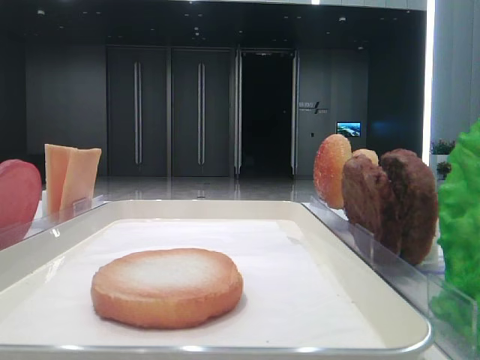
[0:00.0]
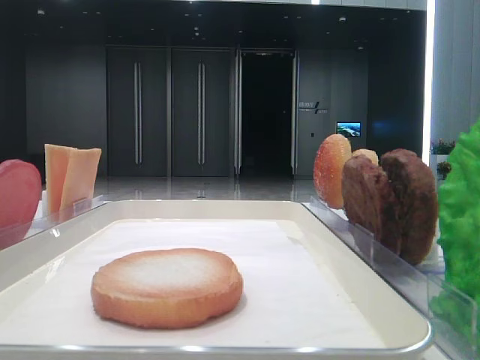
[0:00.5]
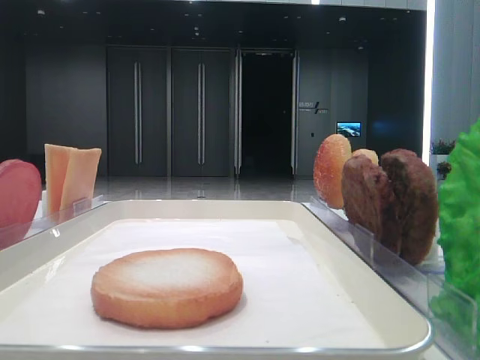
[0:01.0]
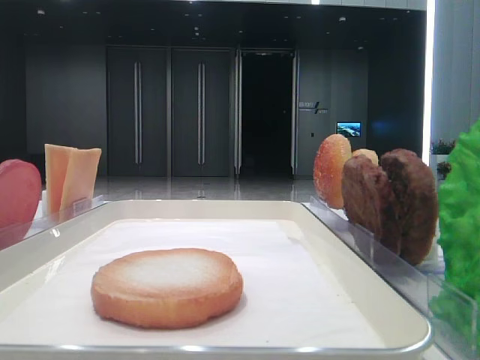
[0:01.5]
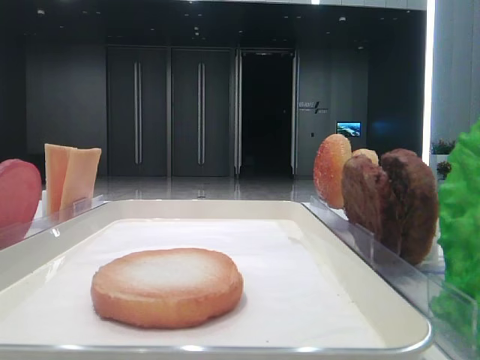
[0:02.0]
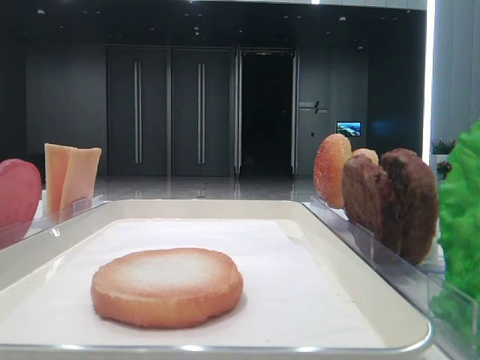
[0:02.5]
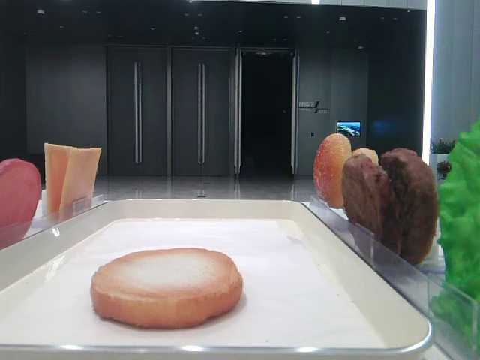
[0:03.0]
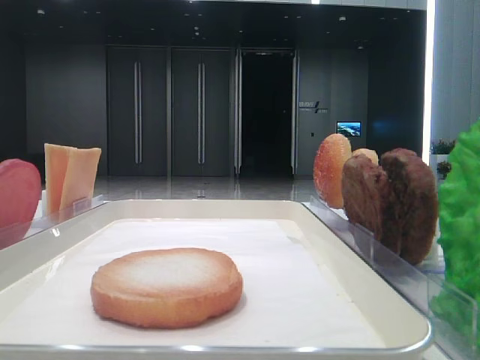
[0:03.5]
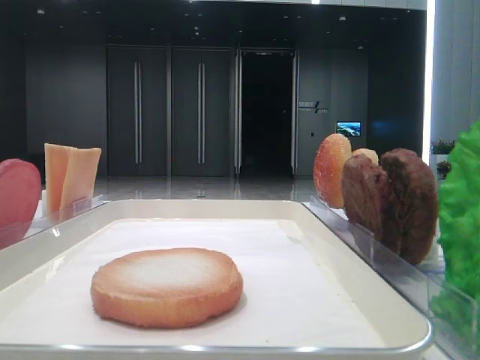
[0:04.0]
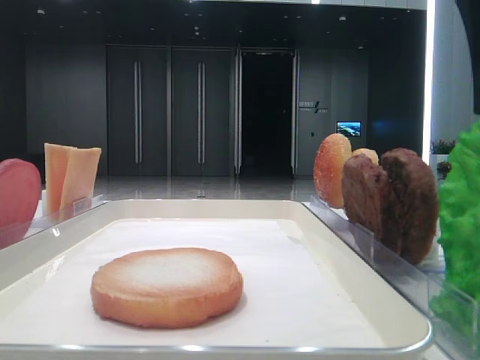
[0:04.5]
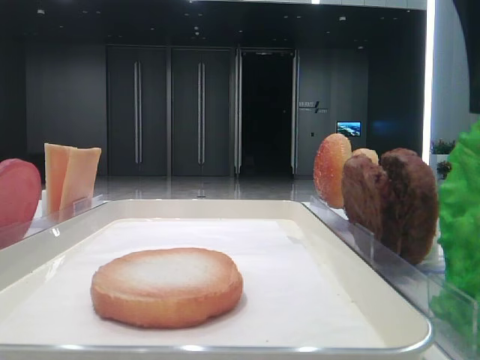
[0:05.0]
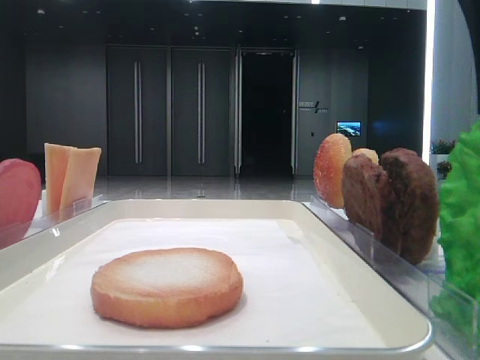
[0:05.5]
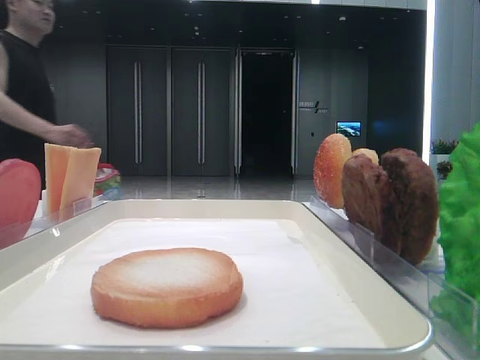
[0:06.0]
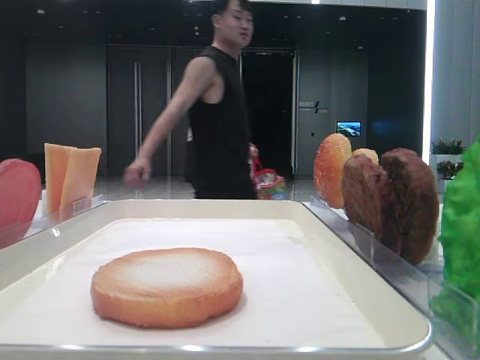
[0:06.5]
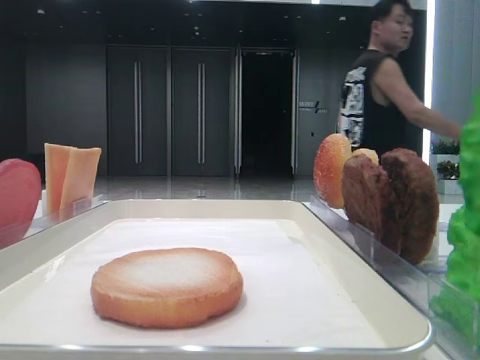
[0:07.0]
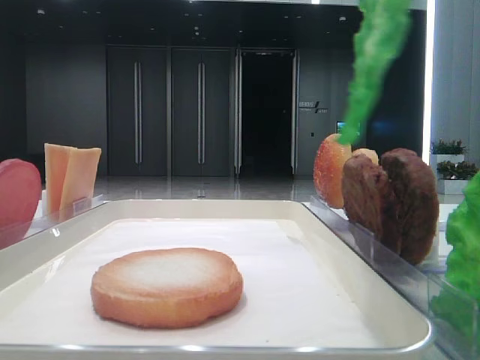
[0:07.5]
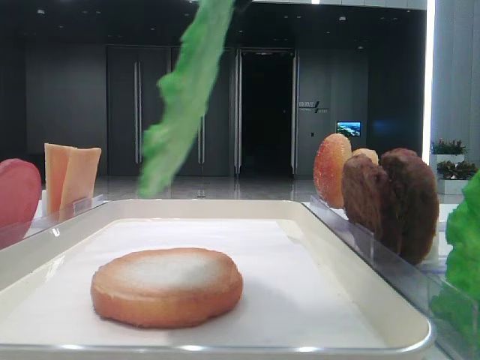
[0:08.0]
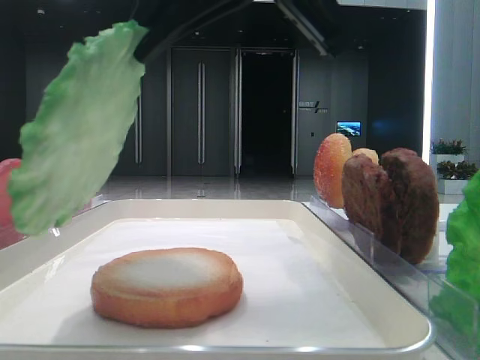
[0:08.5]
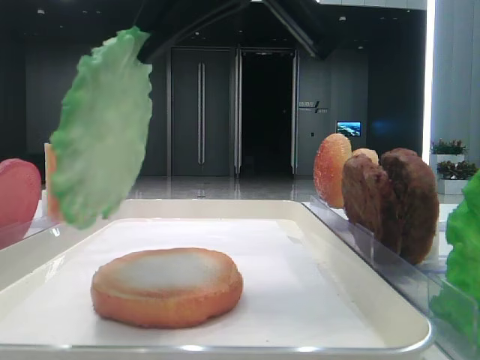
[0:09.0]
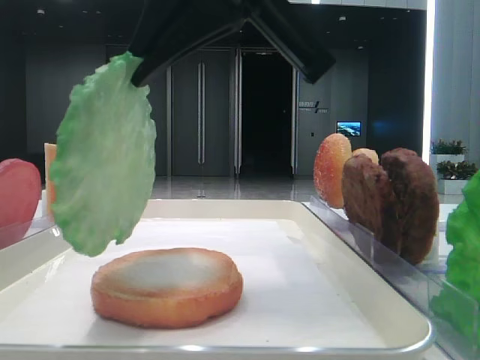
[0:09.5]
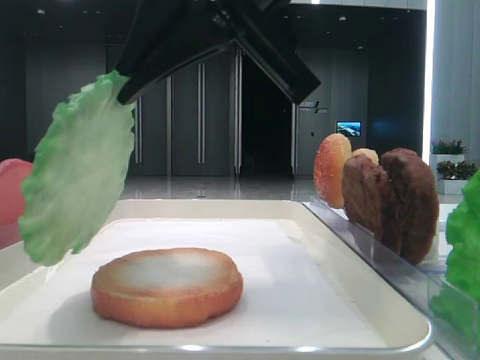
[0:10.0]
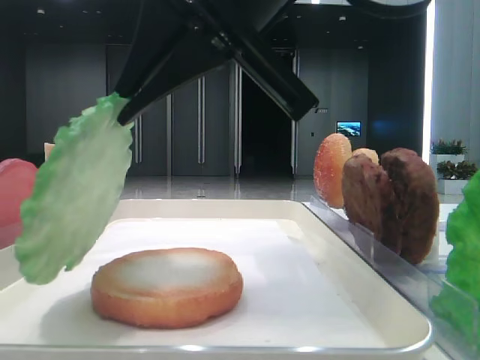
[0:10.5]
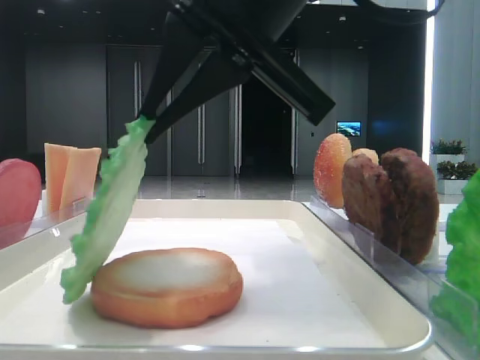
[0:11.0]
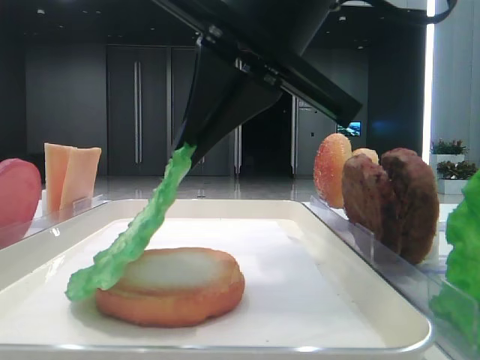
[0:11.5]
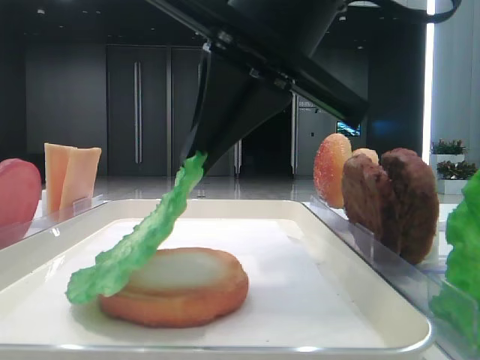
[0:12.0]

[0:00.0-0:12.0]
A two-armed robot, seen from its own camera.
Step, 0:00.0 to 0:06.0: Grab the lettuce leaf with the right hand.
0:06.0 to 0:08.0: The right gripper heads to the left, covering roughly 10 cm, and closes.
0:08.0 to 0:10.0: The right gripper moves downward and to the left, approximately 10 cm.
0:10.0 to 0:12.0: The grippers move only a little.

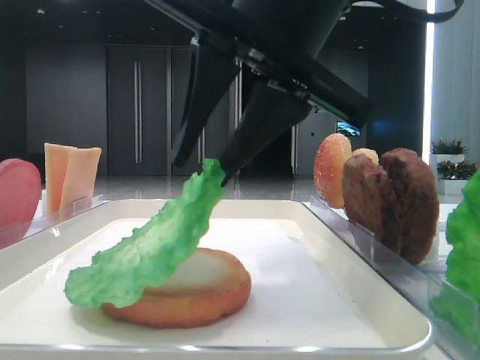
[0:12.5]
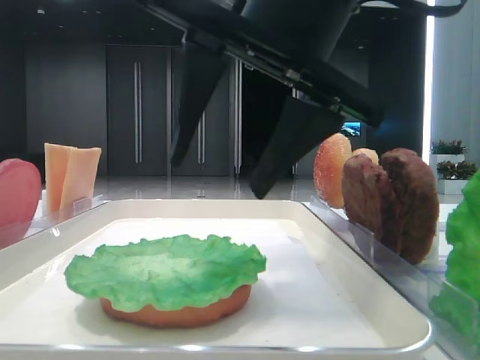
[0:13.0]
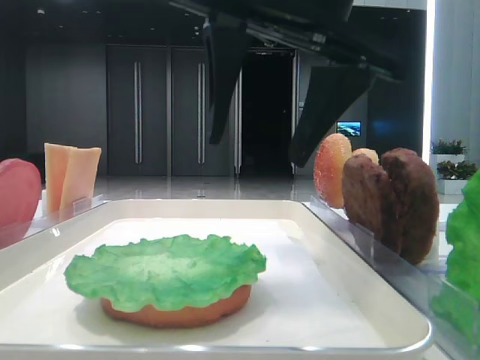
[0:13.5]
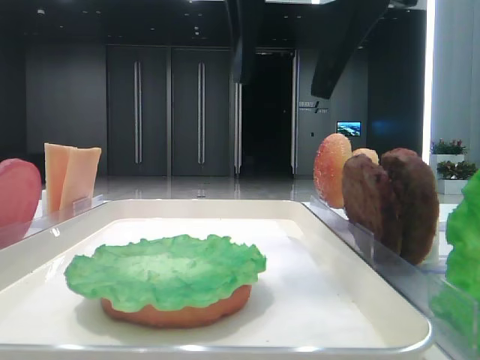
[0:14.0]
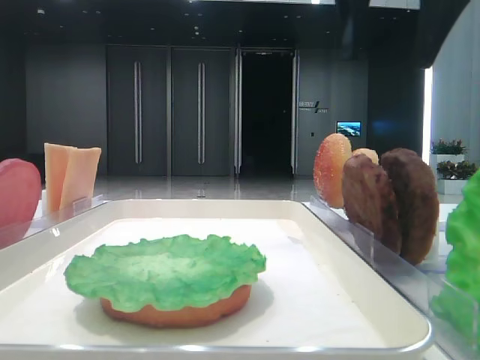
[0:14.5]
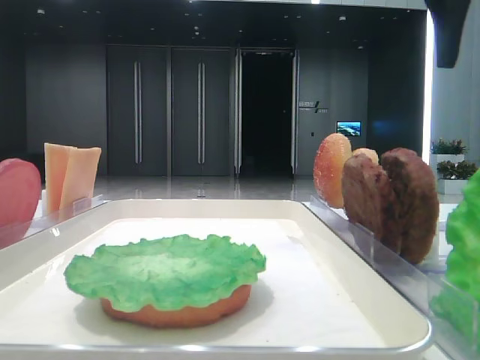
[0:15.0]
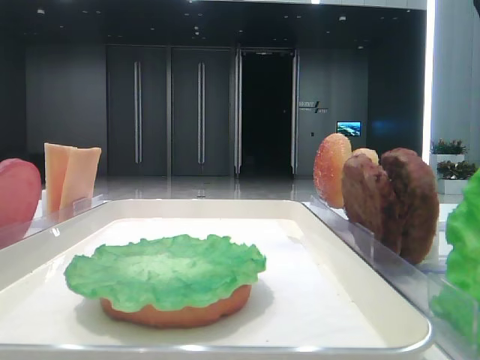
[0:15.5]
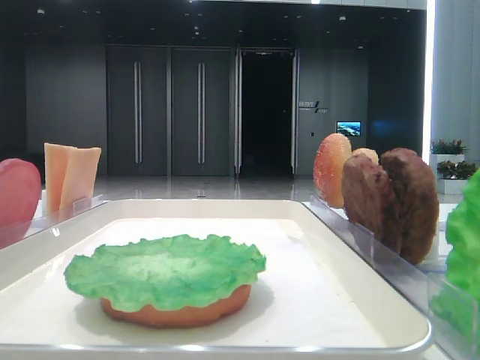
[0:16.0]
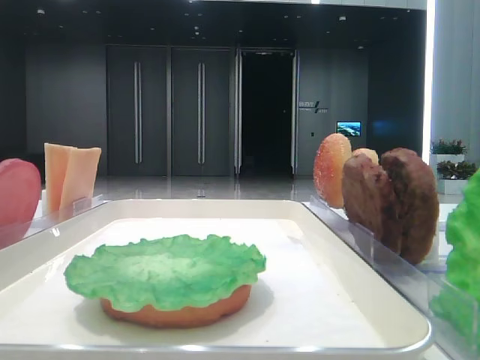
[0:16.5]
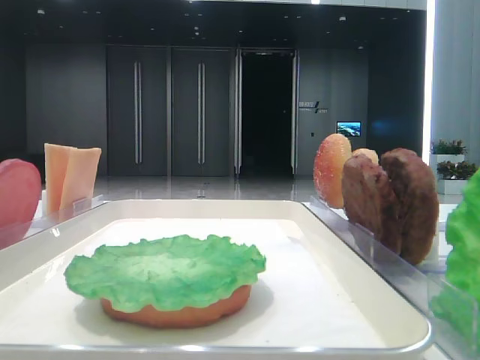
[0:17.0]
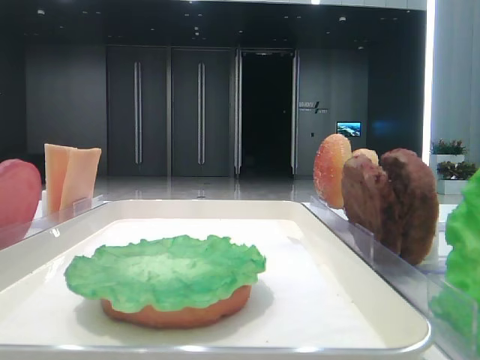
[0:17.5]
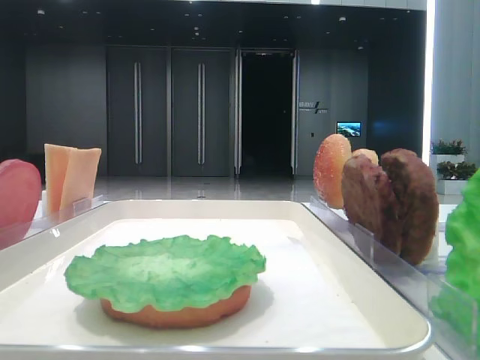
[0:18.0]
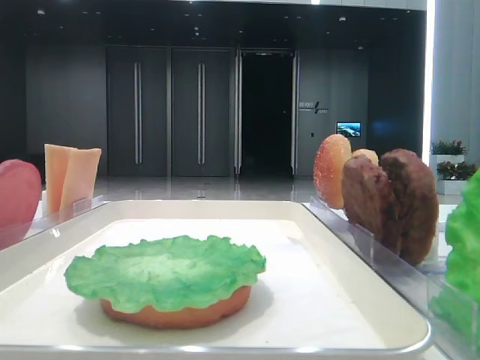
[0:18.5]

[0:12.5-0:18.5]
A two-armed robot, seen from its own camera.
0:12.5 to 0:14.5: The right gripper heads upward, to the right and forward, covering about 15 cm, and opens.
0:14.5 to 0:16.5: The right gripper shifts some 20 cm to the right.
0:16.5 to 0:18.5: The right gripper goes approximately 25 cm backward.

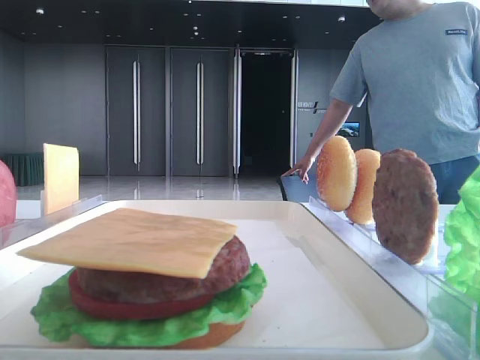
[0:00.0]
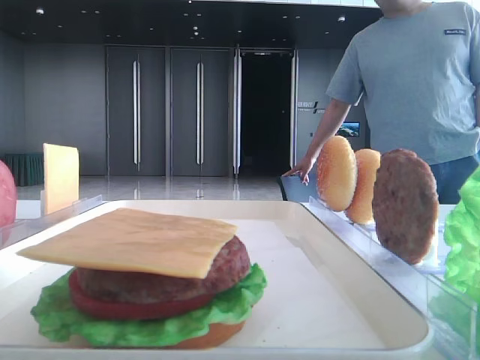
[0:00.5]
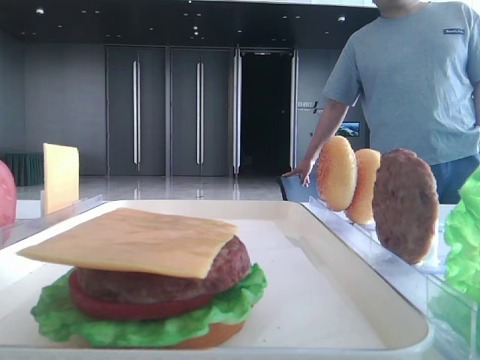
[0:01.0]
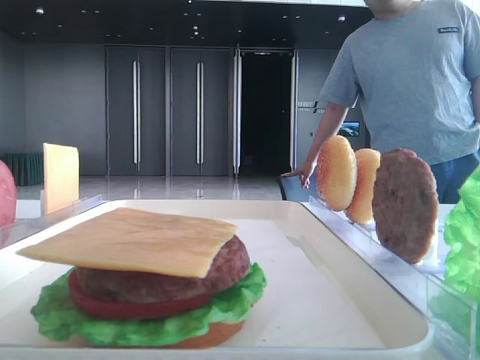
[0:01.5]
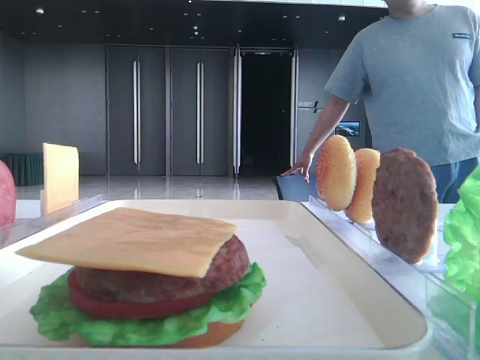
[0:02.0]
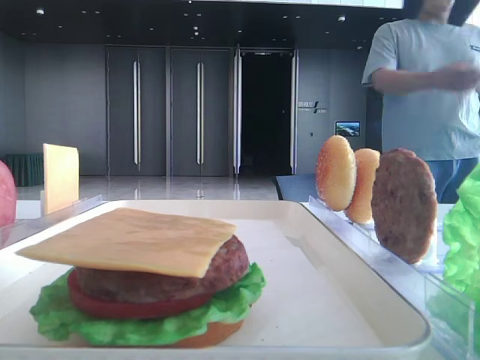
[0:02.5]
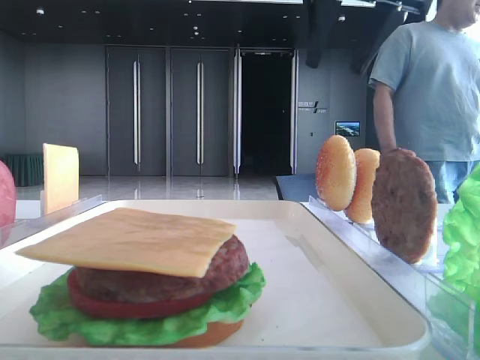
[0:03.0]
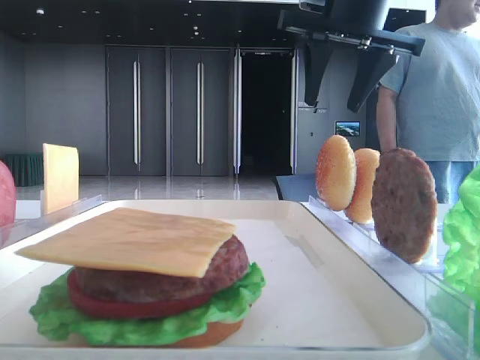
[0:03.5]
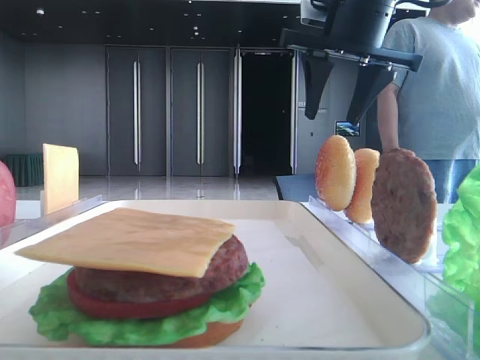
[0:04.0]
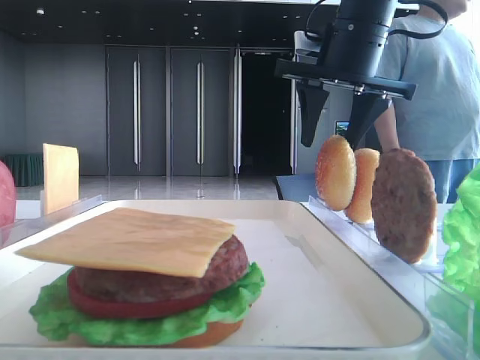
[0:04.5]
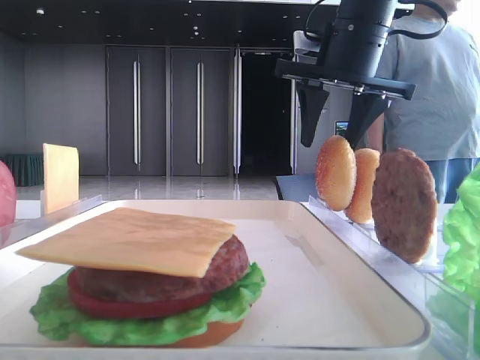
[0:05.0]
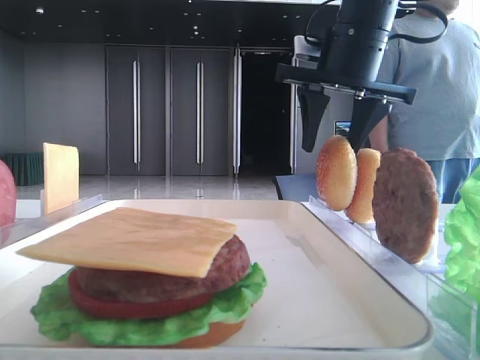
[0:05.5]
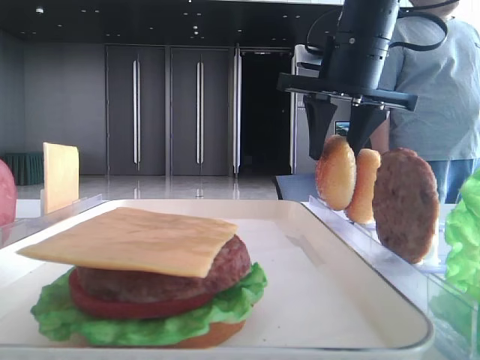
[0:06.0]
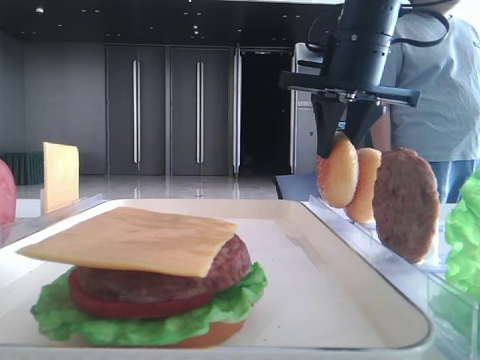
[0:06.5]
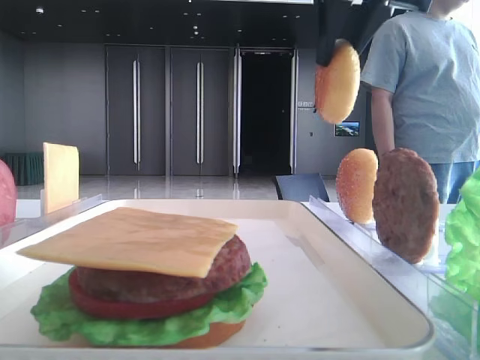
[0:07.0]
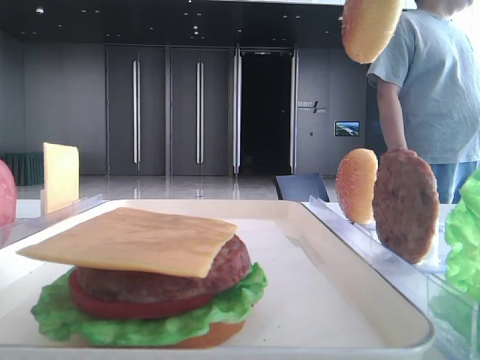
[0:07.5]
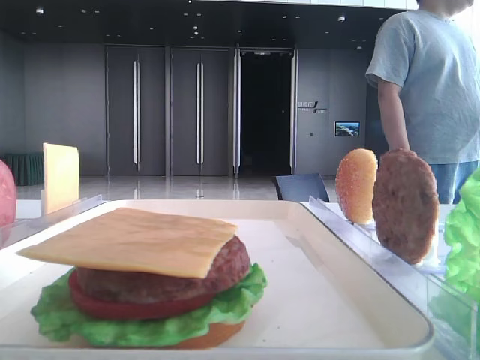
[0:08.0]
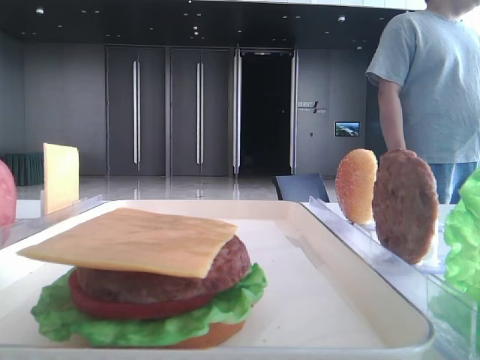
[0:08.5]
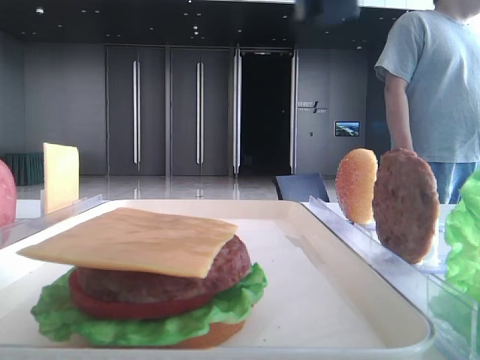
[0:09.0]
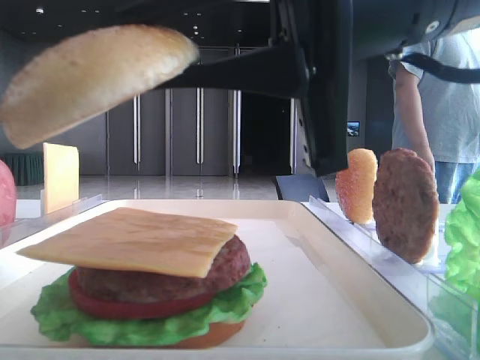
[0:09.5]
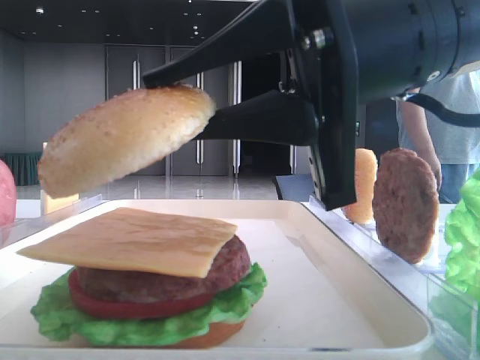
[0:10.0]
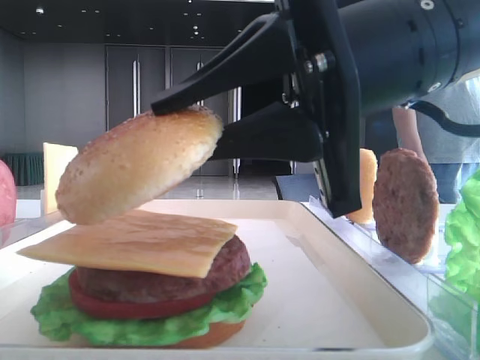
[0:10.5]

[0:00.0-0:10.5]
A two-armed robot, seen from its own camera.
Step, 0:00.0 to 0:06.0: Pick up the top bread slice with the right hand.
0:02.0 to 0:04.0: The right gripper moves to the left, downward and forward, approximately 20 cm, and opens.
0:04.0 to 0:06.5: The right gripper closes its fingers.
0:06.5 to 0:08.5: The right gripper goes some 35 cm backward.
0:08.5 to 0:10.5: The right gripper moves downward and forward, roughly 20 cm.
